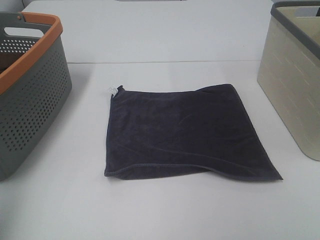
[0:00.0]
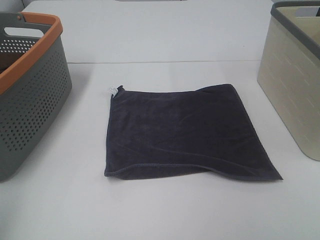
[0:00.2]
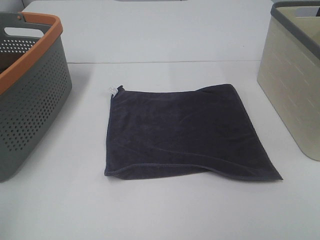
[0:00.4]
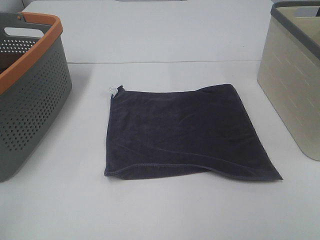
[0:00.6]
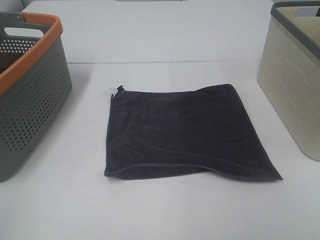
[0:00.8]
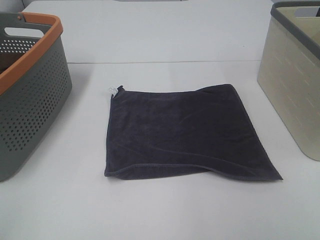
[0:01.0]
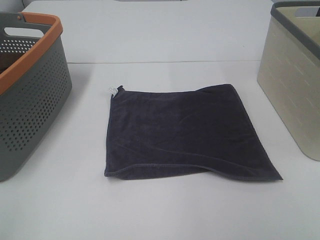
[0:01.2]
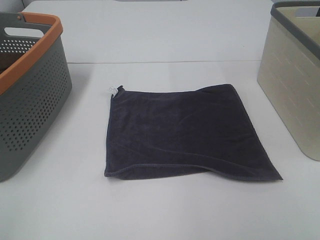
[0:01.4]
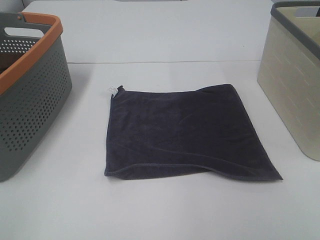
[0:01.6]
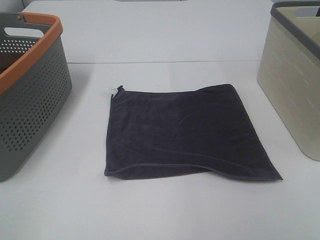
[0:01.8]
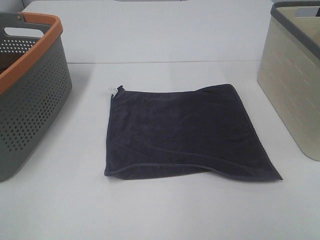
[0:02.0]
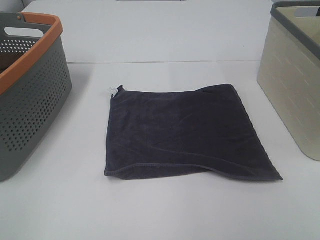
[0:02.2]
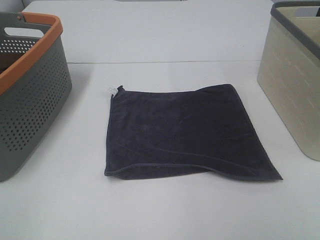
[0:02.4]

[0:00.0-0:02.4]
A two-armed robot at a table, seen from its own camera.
Task of the whole recording: Remove the towel and place it.
0:00.0 to 0:01.2: The left gripper goes roughly 15 cm backward and downward.
0:01.2 to 0:02.4: Neither gripper changes place.

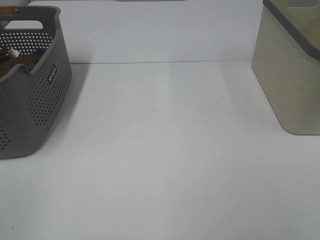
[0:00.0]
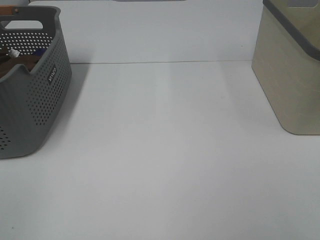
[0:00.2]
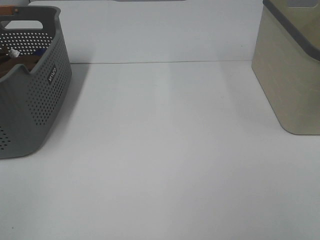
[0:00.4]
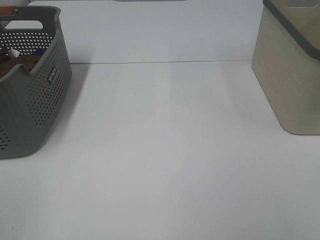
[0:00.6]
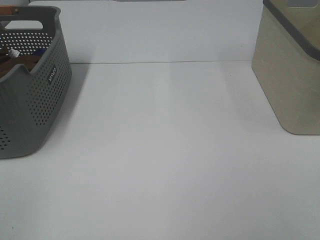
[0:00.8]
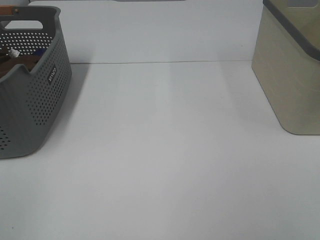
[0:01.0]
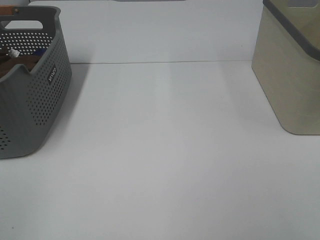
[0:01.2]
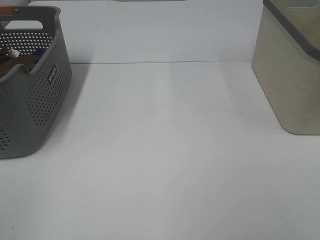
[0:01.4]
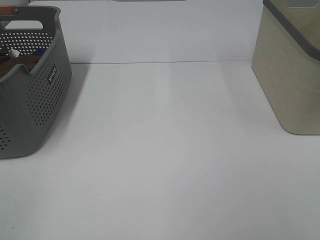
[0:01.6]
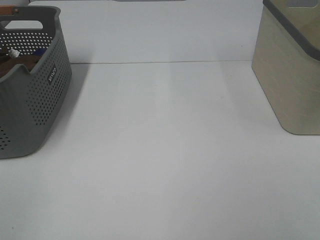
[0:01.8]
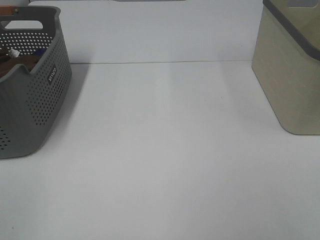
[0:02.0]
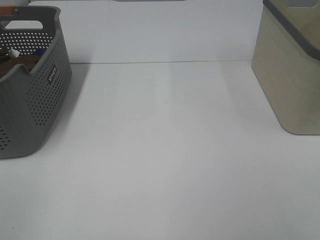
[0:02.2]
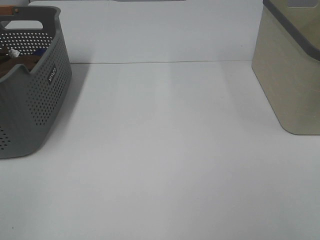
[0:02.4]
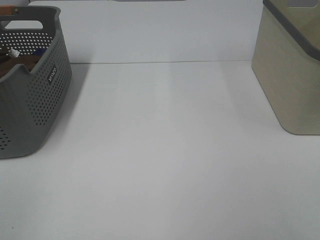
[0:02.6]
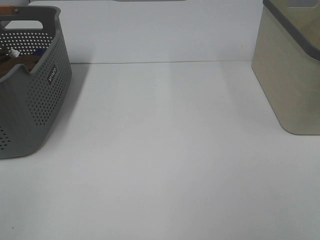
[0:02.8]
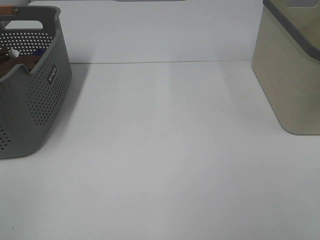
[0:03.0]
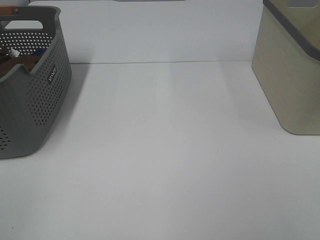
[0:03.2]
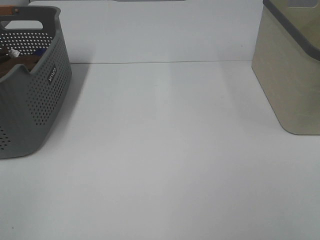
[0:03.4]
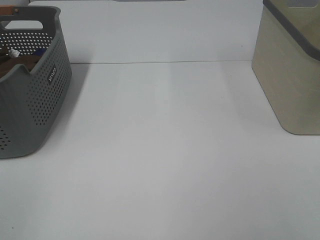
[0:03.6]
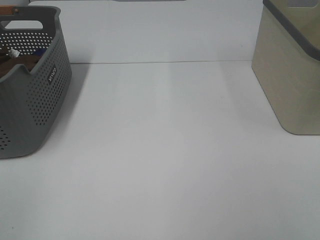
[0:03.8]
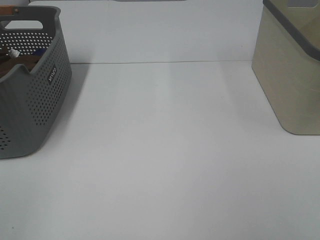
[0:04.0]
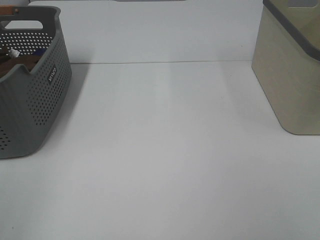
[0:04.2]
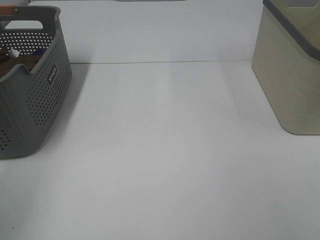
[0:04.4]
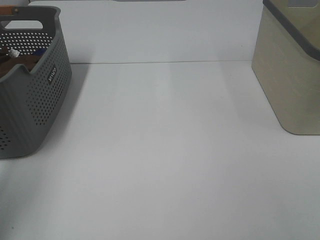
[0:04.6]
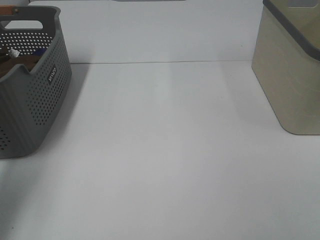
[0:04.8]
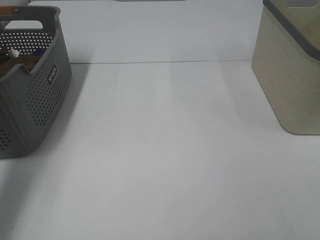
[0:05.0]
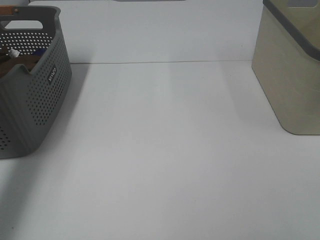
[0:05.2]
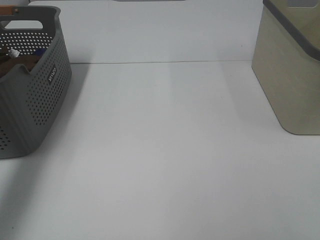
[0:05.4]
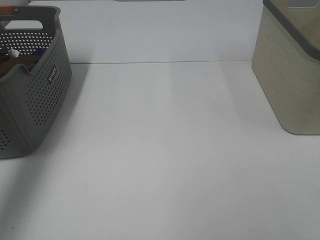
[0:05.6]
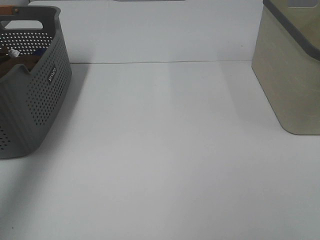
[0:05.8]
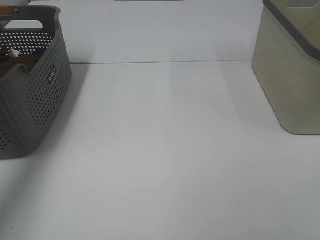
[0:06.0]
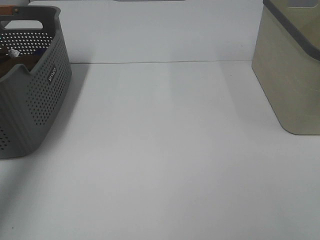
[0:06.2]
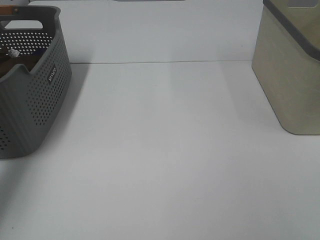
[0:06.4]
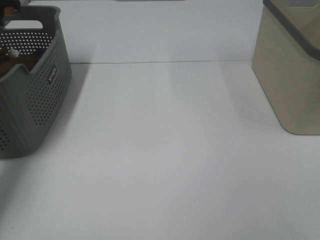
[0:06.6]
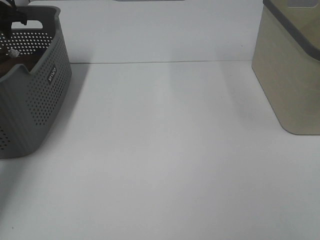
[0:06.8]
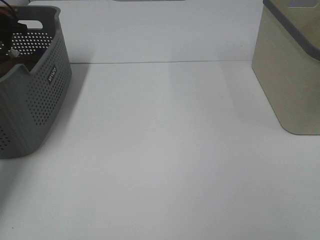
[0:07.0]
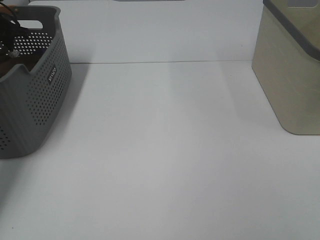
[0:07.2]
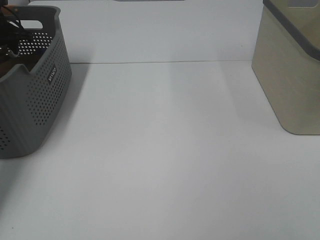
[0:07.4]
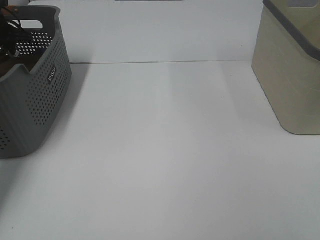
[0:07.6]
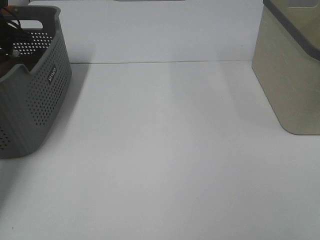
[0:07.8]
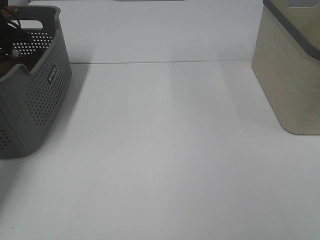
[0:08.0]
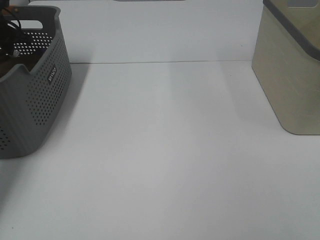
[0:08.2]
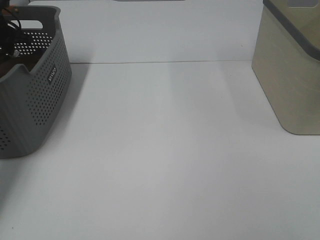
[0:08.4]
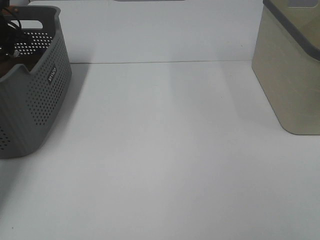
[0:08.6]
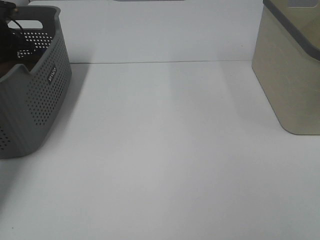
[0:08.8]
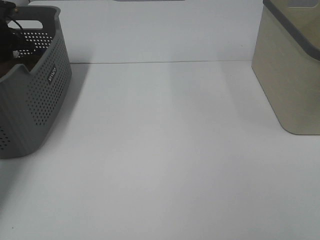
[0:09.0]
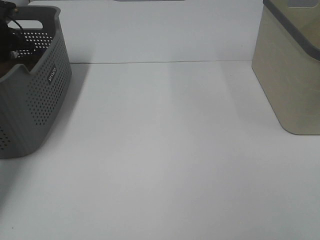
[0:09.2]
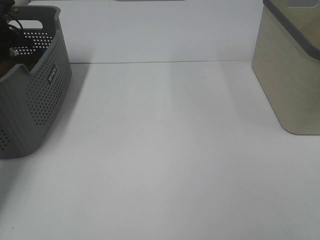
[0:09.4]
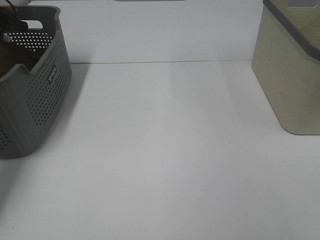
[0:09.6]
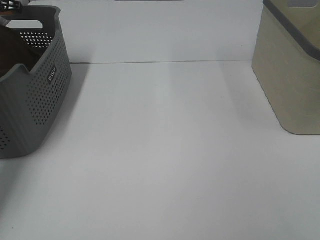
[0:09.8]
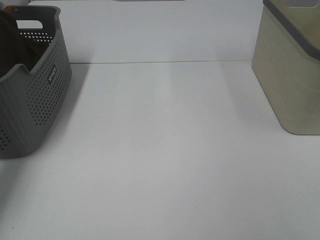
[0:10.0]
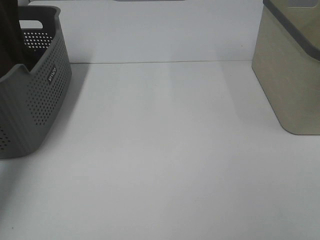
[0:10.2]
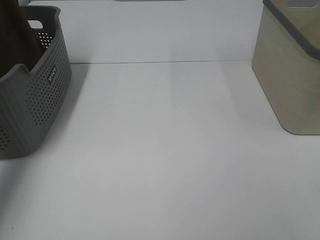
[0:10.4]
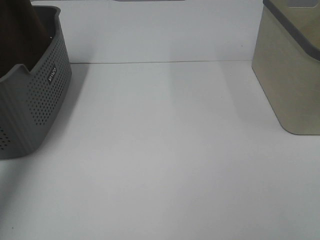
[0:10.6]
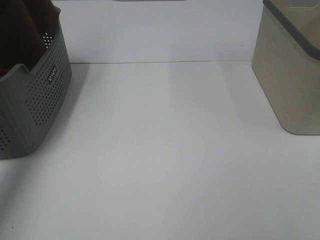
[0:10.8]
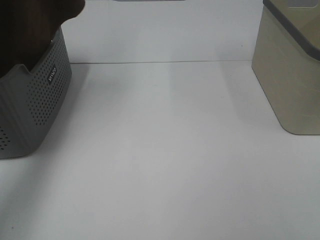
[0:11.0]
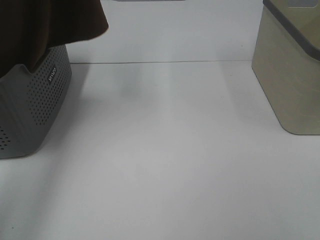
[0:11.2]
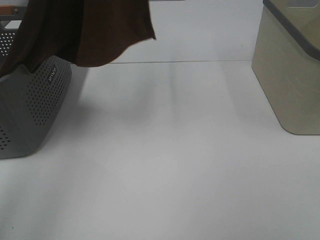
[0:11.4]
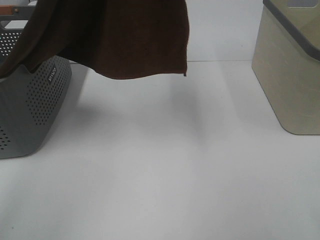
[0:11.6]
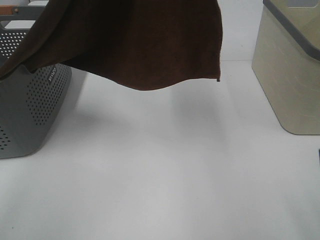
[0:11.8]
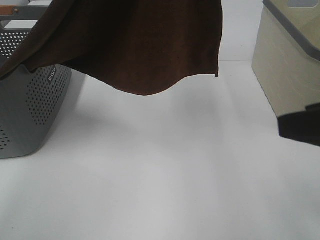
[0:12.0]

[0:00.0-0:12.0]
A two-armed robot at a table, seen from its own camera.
Task of the whole recording: Remove the towel and place it.
0:00.0 to 0:03.0: Both grippers stay about where they are.
0:04.4 to 0:06.0: The left gripper shifts approximately 35 cm forward.
0:06.0 to 0:07.6: The left gripper travels downward and forward by some 20 cm.
0:09.0 to 0:10.4: The left gripper is displaced upward by roughly 25 cm.
0:10.4 to 0:12.0: The right gripper shifts about 15 cm forward, while the left gripper travels to the right and backward by approximately 35 cm.

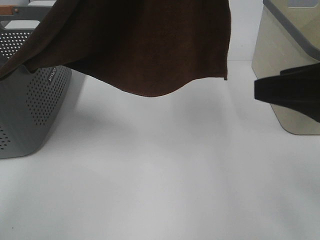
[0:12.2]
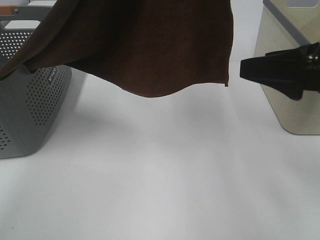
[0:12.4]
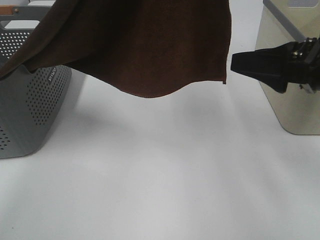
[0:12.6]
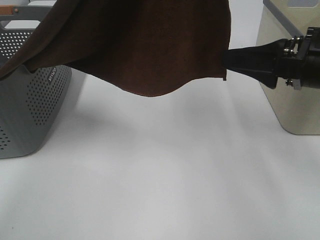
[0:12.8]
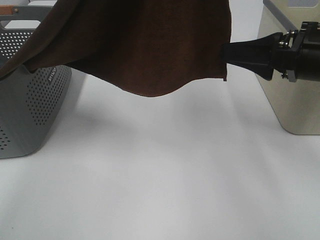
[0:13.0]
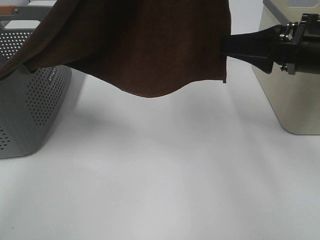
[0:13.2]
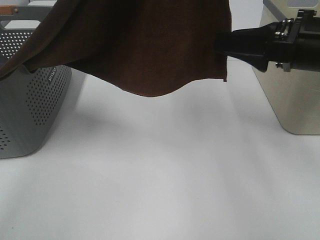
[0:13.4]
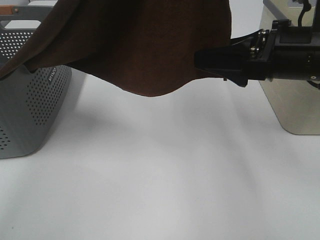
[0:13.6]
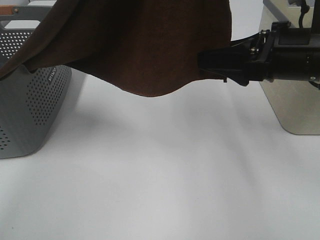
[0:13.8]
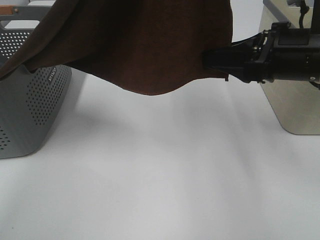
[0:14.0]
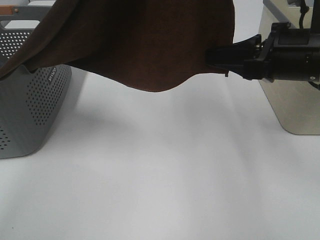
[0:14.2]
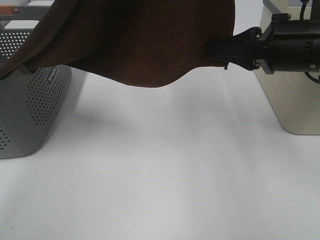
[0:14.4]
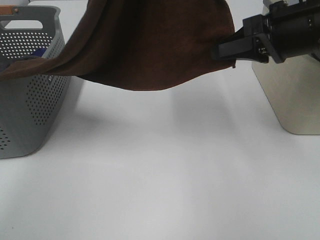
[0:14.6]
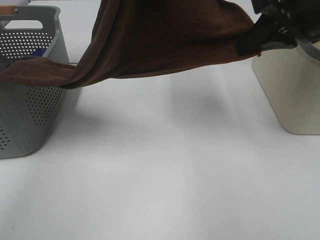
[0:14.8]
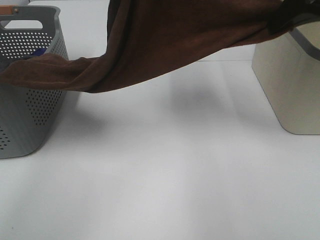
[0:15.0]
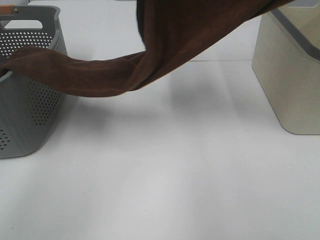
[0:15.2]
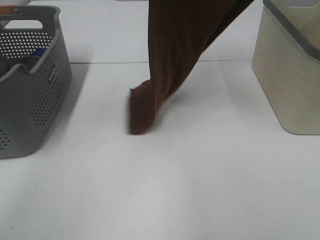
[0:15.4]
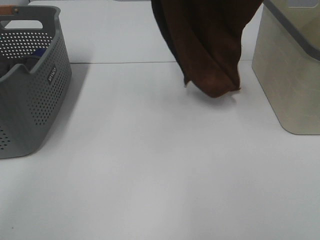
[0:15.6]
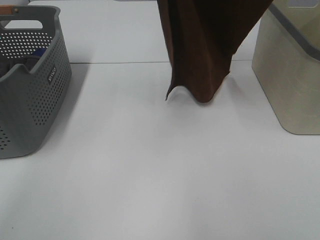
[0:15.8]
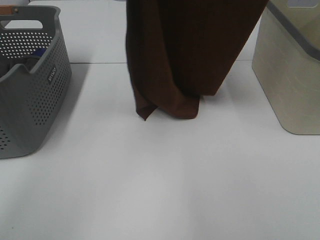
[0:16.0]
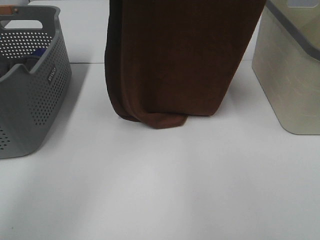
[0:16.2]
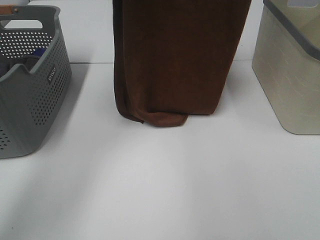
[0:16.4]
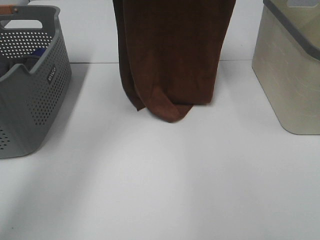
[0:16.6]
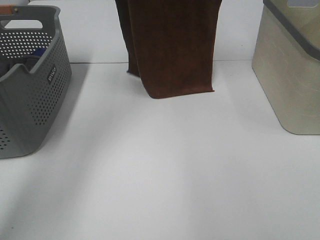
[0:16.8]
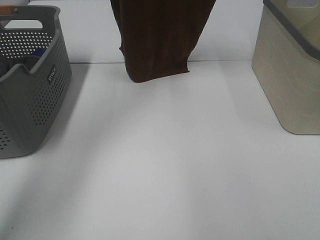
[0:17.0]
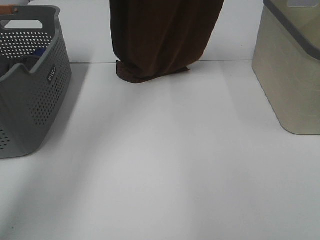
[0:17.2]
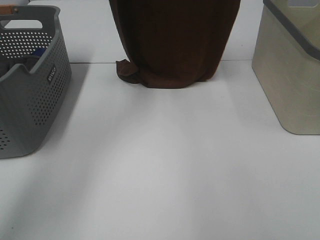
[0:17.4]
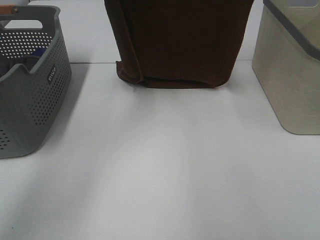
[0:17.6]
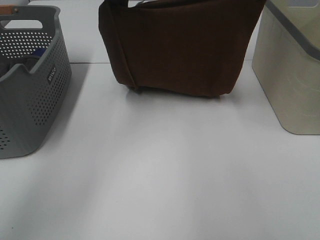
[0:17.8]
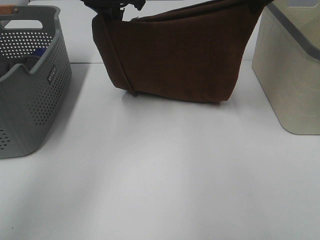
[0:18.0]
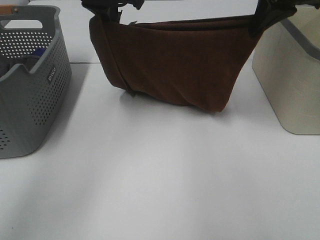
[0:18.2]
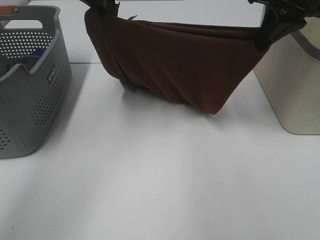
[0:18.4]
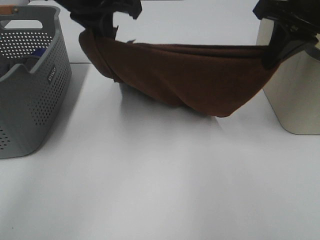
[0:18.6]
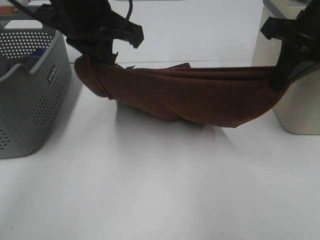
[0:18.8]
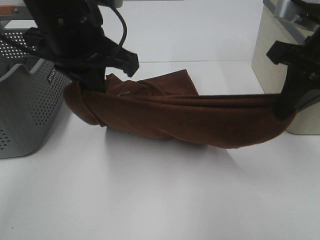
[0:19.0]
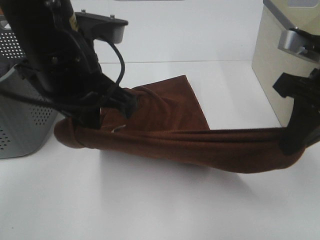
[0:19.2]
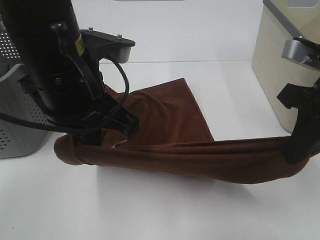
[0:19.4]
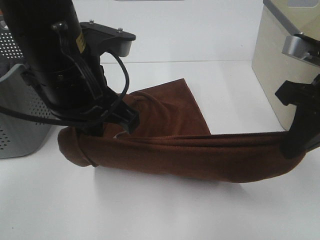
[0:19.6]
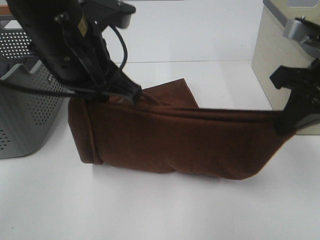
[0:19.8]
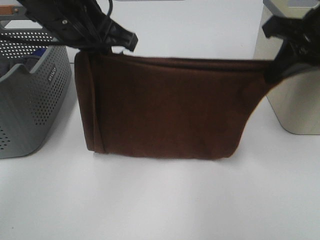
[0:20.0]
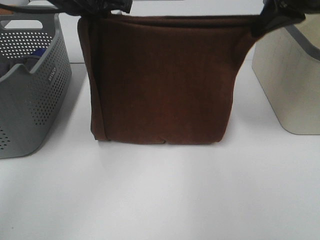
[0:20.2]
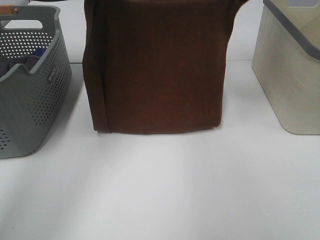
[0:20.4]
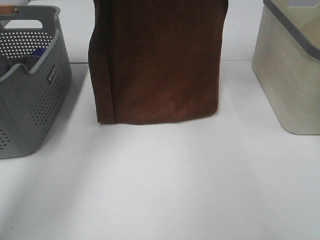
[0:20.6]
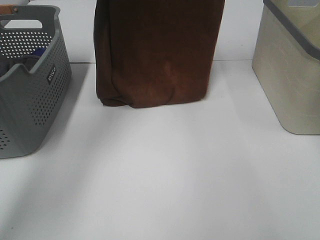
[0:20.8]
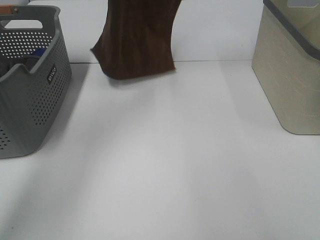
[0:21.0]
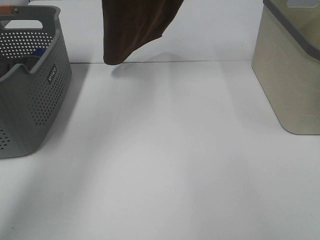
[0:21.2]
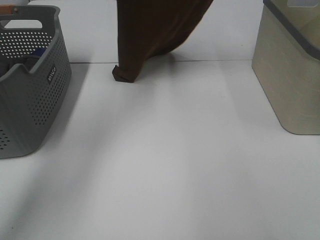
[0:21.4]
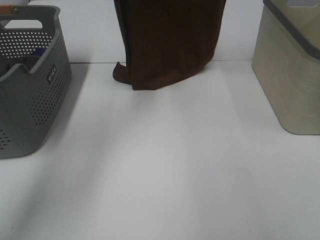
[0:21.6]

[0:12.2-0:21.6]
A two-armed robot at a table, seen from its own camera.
Task of the whole recording: Remove the towel and place it.
Step, 0:13.0 to 0:20.0: Left hand: spread the brown towel flat on the table.
Step, 0:13.0 to 0:20.0: Right hand: spread the brown towel flat on the table.
0:12.2 to 0:13.8: The right gripper heads forward, covering roughly 10 cm.
0:13.8 to 0:15.4: The left gripper shifts about 10 cm forward, while the right gripper shifts roughly 25 cm upward, and closes up.
0:15.4 to 0:17.0: The left gripper is displaced forward and to the left by roughly 10 cm. The right gripper heads forward, covering approximately 15 cm.
0:17.0 to 0:18.4: The right gripper is displaced downward by roughly 15 cm. Meanwhile the left gripper is displaced downward and backward by approximately 15 cm.
0:18.4 to 0:20.0: Both grippers travel together backward, some 10 cm.
0:20.0 to 0:21.6: Both grippers travel together forward and upward, approximately 20 cm.
